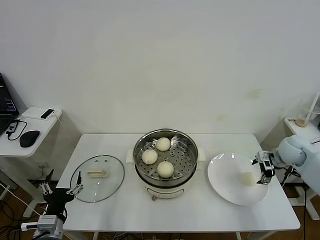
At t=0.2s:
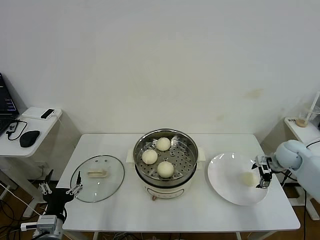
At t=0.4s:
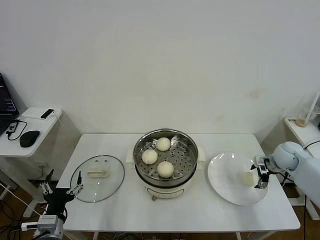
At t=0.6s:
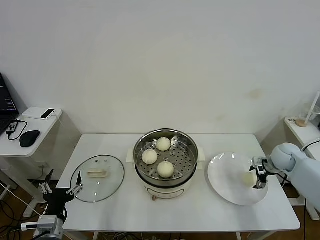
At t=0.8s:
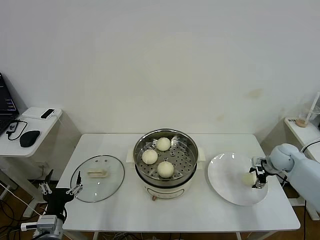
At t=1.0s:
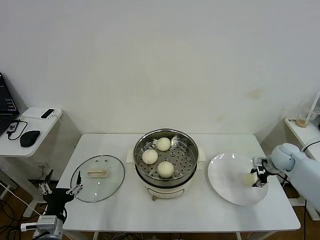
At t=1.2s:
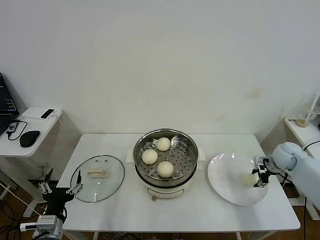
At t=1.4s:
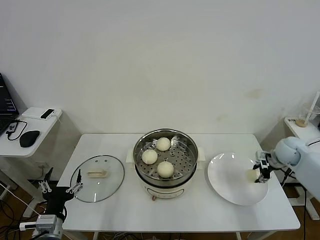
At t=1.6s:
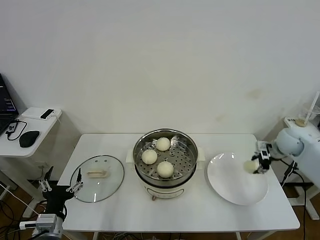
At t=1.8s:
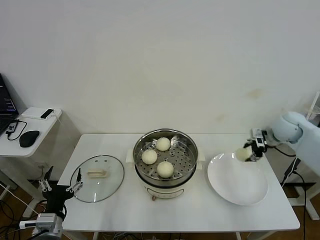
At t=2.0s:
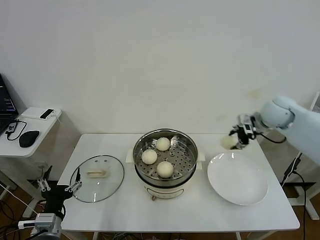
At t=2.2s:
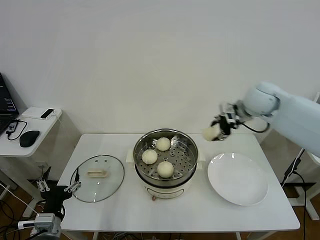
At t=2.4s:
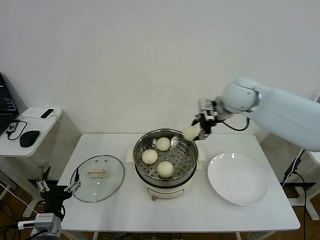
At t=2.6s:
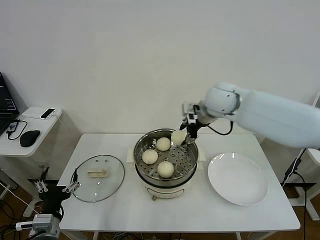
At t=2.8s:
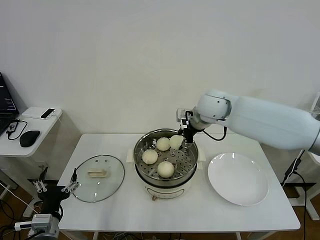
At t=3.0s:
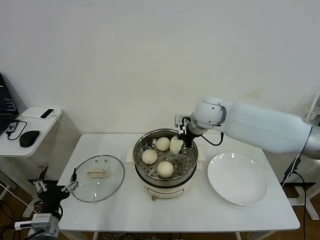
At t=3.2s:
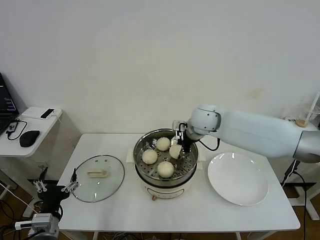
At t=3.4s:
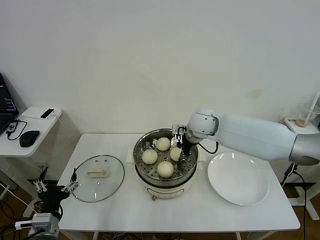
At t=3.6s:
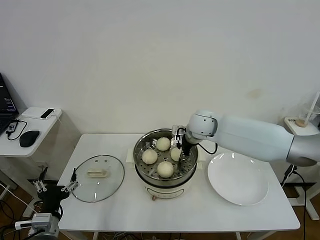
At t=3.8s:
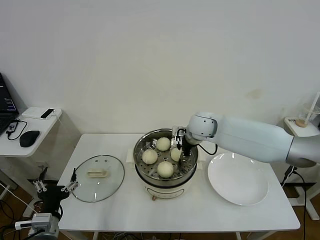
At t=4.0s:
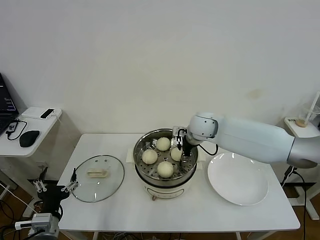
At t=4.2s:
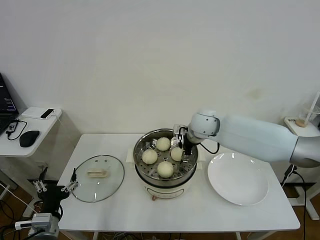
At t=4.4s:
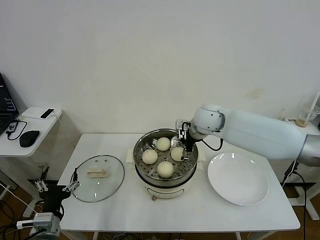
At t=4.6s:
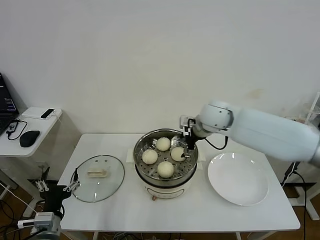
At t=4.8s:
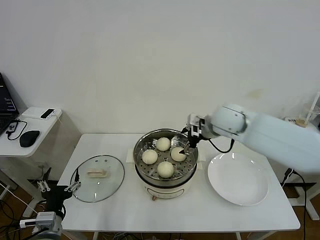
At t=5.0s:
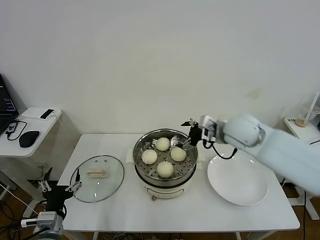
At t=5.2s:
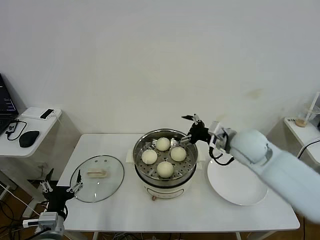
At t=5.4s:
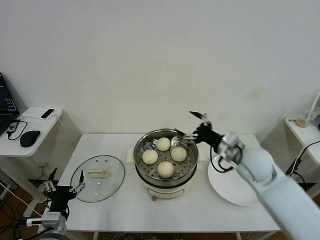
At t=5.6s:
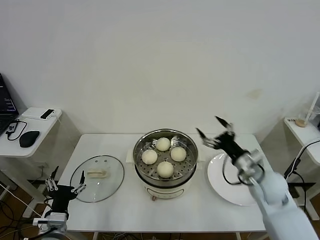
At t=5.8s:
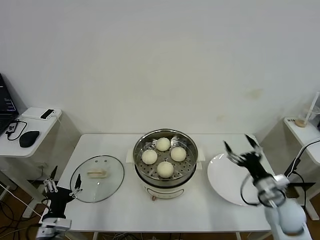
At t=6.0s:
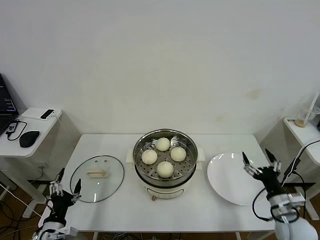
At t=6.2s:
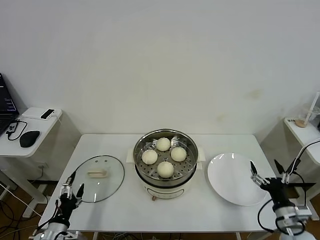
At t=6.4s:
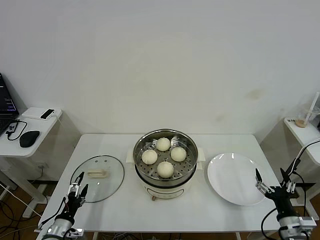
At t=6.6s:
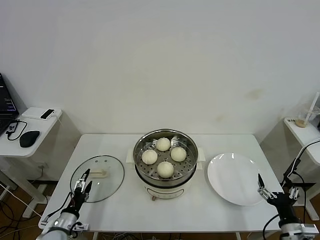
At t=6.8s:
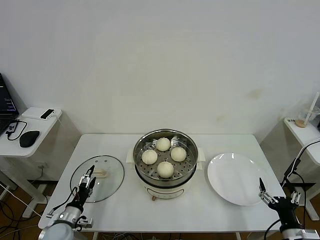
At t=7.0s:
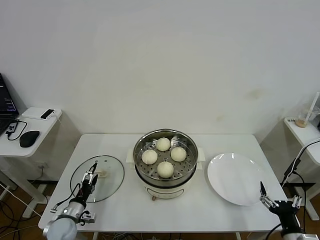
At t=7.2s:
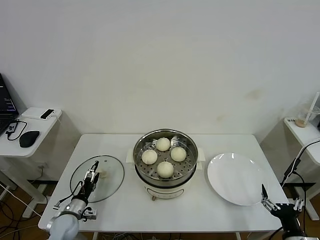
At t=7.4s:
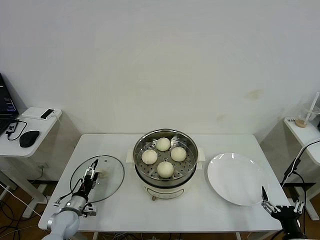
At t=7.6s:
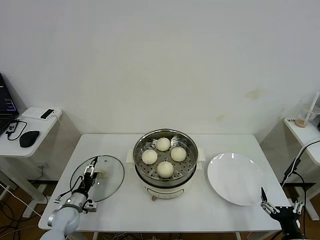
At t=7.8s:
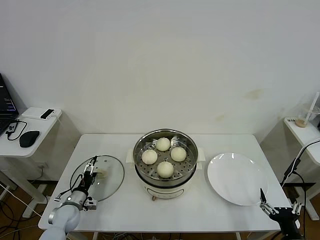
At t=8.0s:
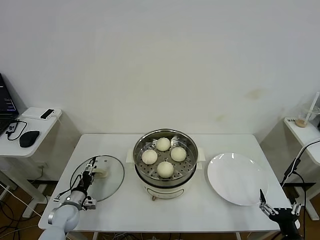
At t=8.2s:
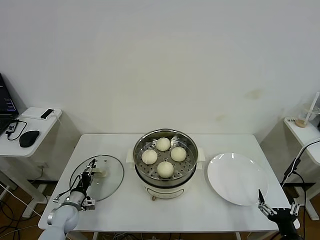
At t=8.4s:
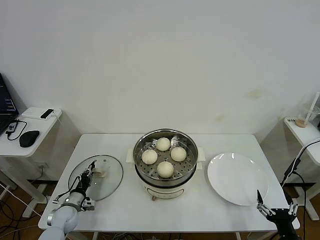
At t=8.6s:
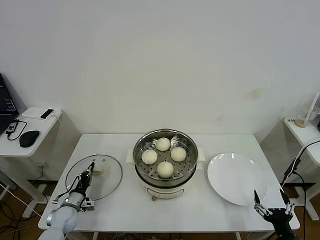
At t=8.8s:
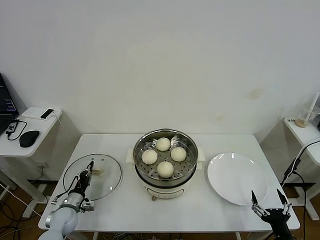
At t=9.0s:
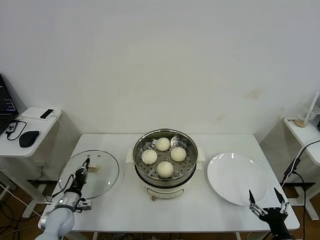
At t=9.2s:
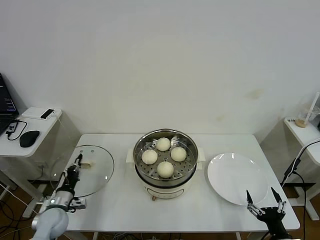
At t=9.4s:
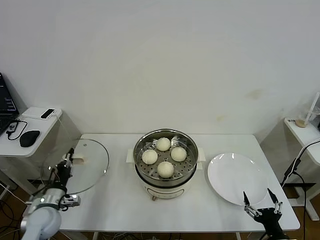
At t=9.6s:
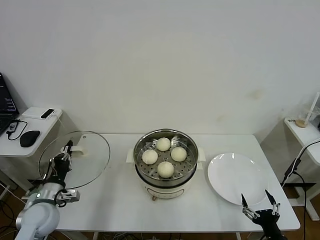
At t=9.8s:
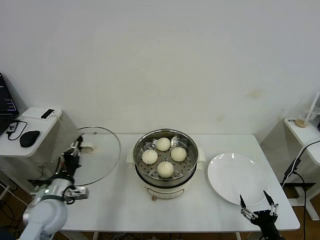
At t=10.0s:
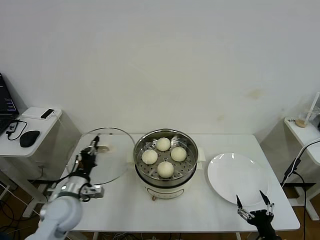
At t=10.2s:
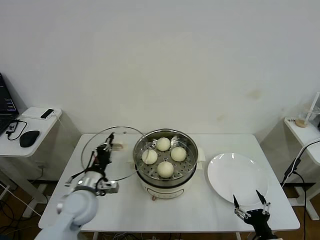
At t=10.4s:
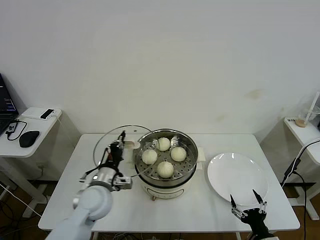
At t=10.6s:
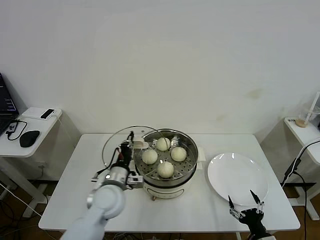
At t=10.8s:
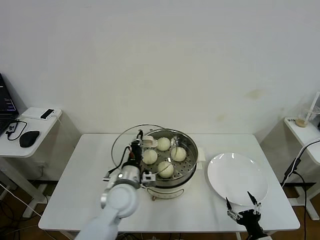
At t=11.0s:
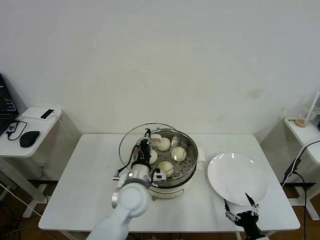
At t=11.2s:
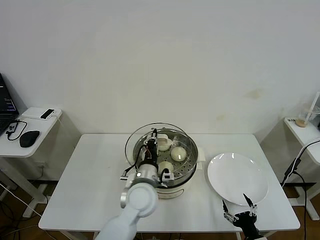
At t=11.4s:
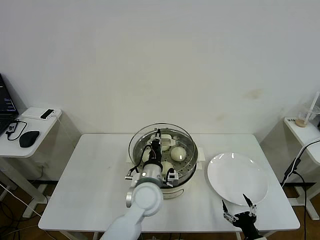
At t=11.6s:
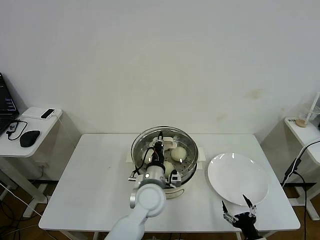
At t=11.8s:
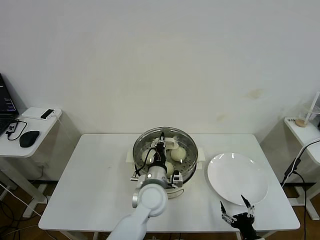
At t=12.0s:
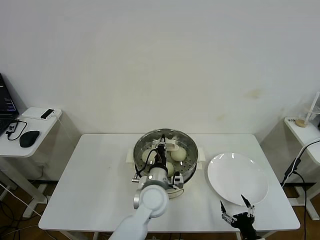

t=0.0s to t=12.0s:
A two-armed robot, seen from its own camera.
Task of the whole recording: take steamed baozi put them in steamer then cover it.
Step, t=1.2s to t=4.4s: Place the baozi on the steamer with right gripper.
Step, t=4.6s to t=8.8s: Grasp the pot lid with left gripper.
t=0.0s to t=1.6s: The right gripper closes.
t=1.6s to t=3.0s: The right gripper shifts approximately 30 cm to the left.
t=3.0s to t=4.4s: The right gripper opens its fingers.
t=4.4s to t=6.0s: The right gripper travels backward, to the right and downward by approximately 40 cm. The left gripper travels downward by some 5 cm.
t=6.0s to t=7.6s: The left gripper is displaced forward and downward by approximately 15 cm. Meanwhile the right gripper heads backward, covering about 10 cm.
t=7.6s to t=9.0s: The left gripper closes.
t=9.0s to t=10.4s: The left gripper goes approximately 25 cm upward and to the right.
t=10.4s to t=12.0s: The left gripper heads to the right, covering some 20 cm.

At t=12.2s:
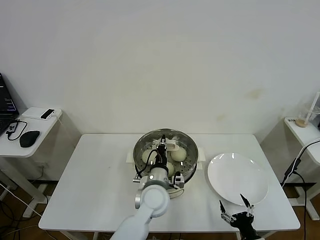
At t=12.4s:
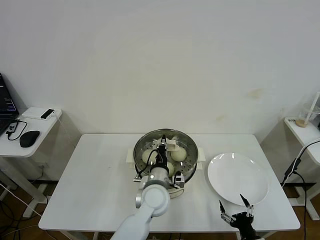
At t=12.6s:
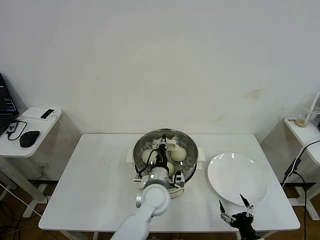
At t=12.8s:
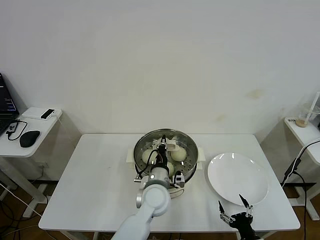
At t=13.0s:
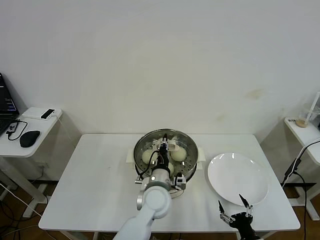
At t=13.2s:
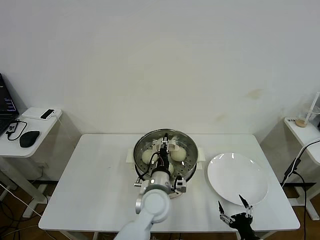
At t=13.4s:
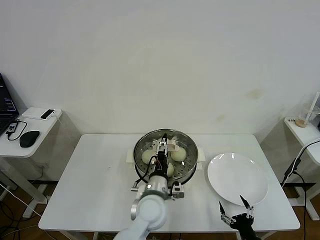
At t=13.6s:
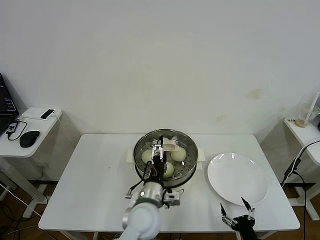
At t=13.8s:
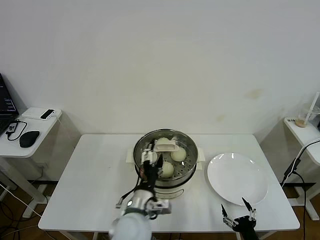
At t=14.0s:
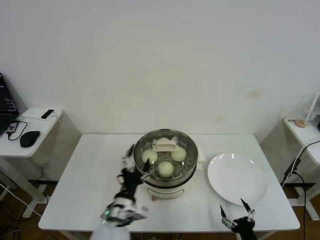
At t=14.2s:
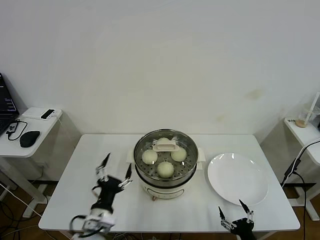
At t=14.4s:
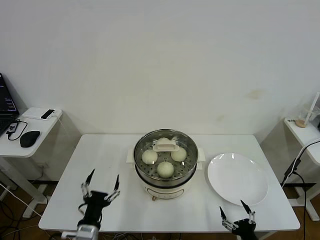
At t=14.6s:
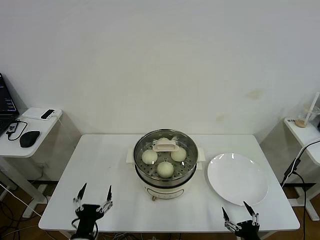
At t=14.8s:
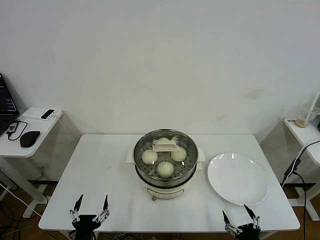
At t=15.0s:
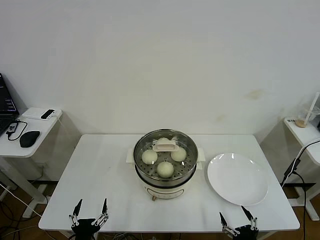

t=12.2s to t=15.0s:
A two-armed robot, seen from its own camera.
Task of the whole recording: take steamed baozi put them in steamer then cover it.
t=12.2s to t=13.6s: The left gripper heads backward, covering roughly 5 cm, and opens up.
t=13.6s to t=15.0s: The right gripper moves roughly 5 cm, while the left gripper goes about 30 cm to the left, backward and downward.
